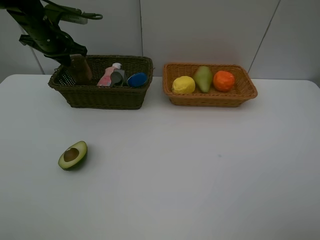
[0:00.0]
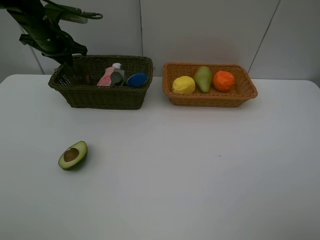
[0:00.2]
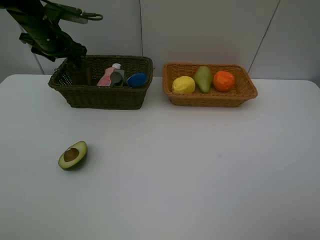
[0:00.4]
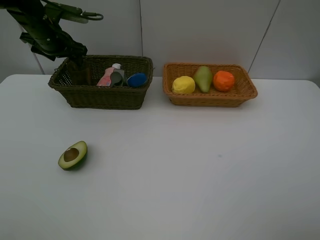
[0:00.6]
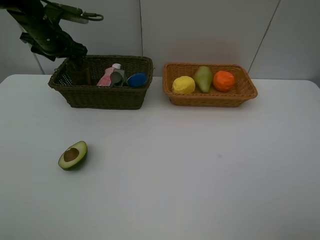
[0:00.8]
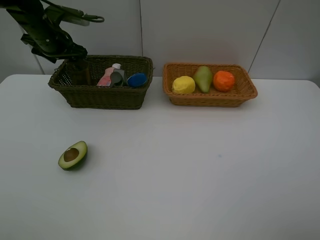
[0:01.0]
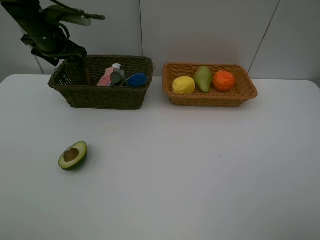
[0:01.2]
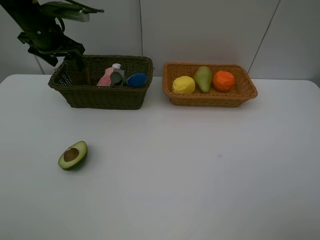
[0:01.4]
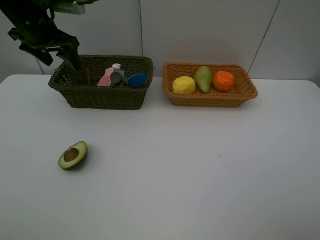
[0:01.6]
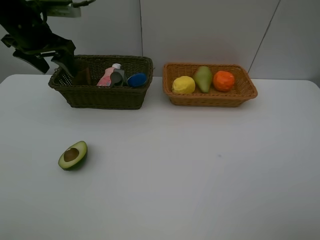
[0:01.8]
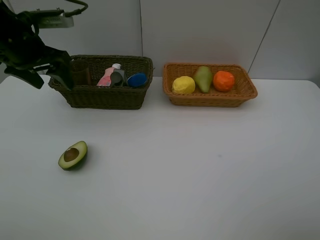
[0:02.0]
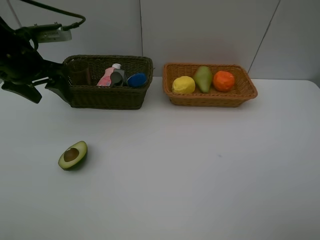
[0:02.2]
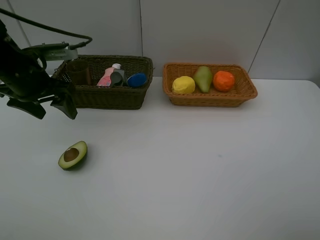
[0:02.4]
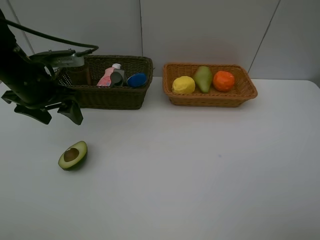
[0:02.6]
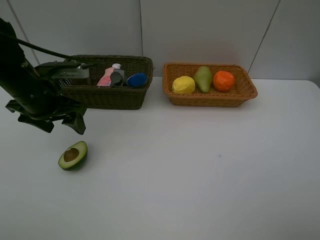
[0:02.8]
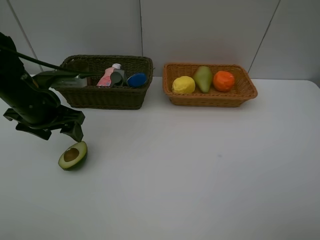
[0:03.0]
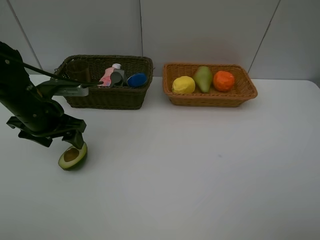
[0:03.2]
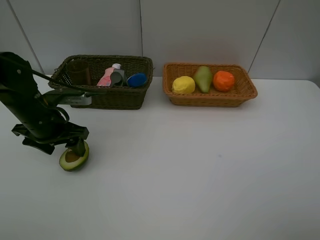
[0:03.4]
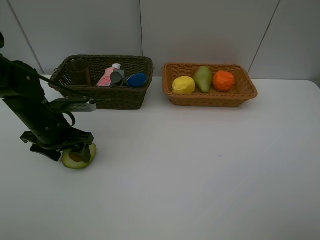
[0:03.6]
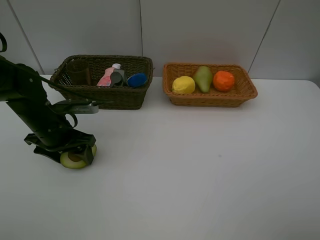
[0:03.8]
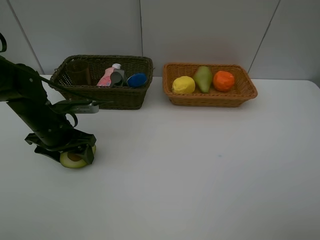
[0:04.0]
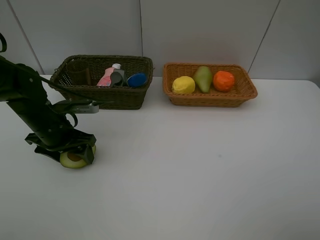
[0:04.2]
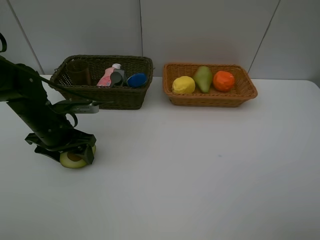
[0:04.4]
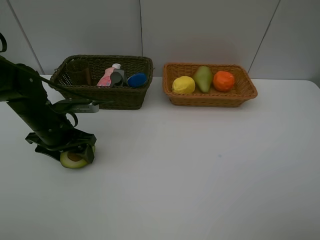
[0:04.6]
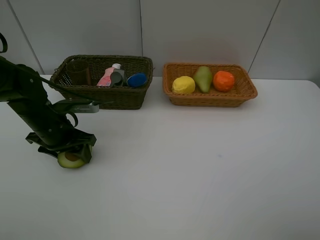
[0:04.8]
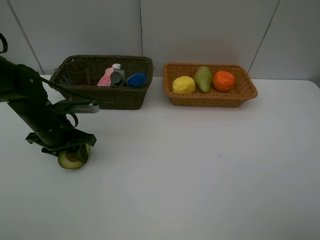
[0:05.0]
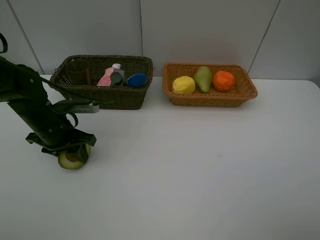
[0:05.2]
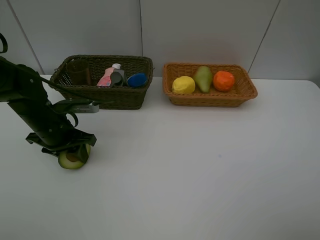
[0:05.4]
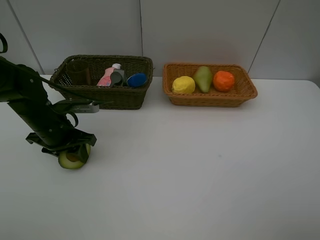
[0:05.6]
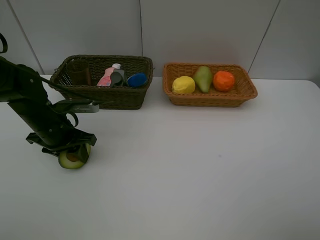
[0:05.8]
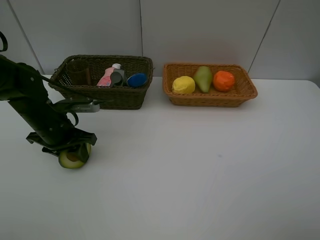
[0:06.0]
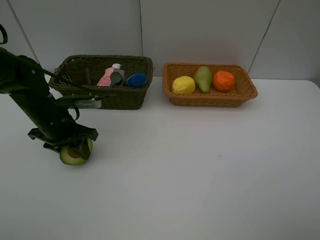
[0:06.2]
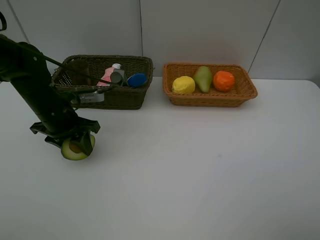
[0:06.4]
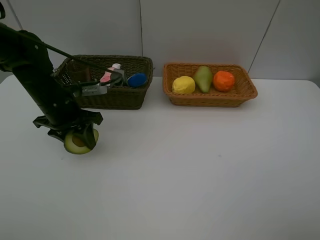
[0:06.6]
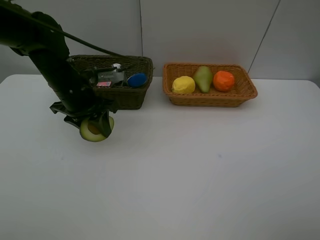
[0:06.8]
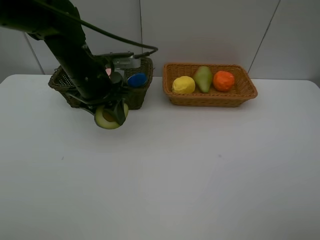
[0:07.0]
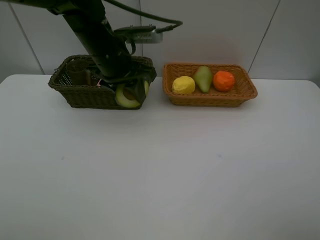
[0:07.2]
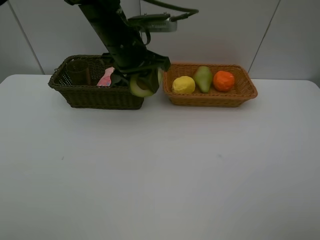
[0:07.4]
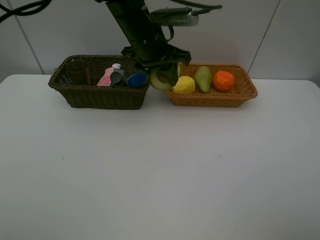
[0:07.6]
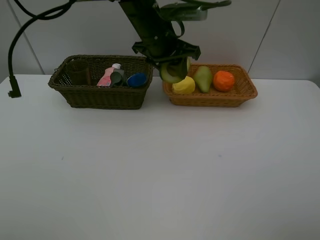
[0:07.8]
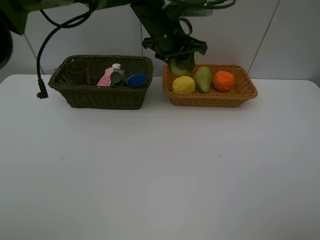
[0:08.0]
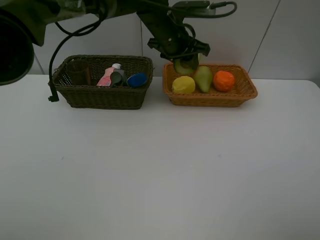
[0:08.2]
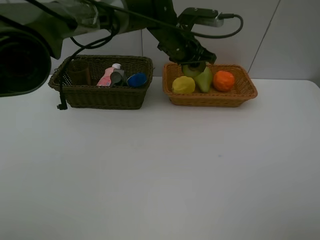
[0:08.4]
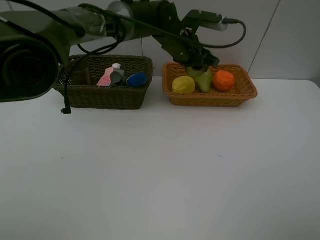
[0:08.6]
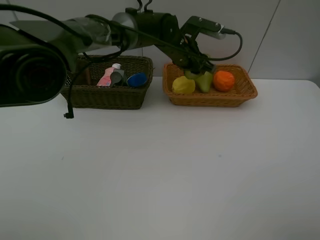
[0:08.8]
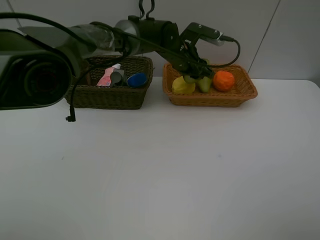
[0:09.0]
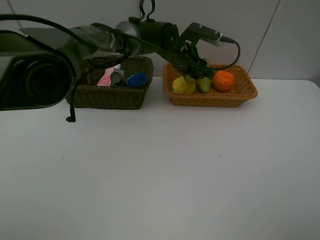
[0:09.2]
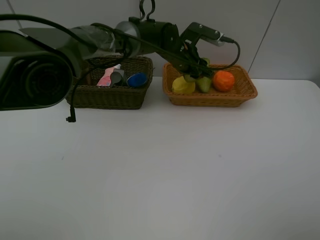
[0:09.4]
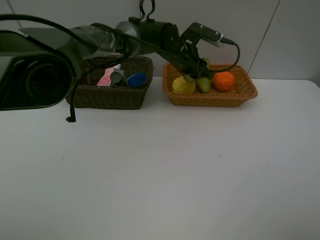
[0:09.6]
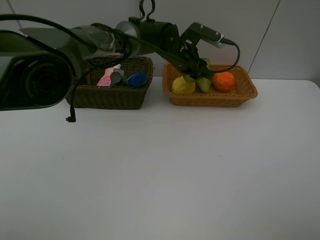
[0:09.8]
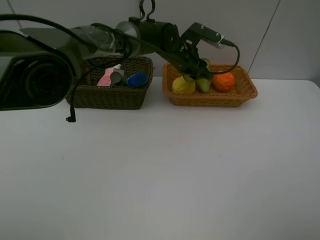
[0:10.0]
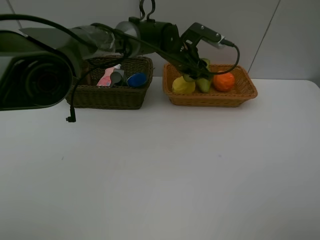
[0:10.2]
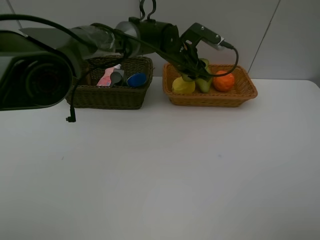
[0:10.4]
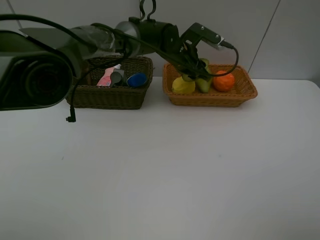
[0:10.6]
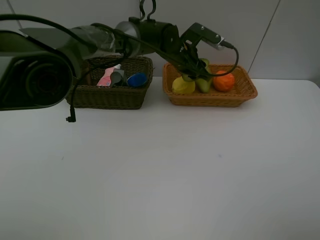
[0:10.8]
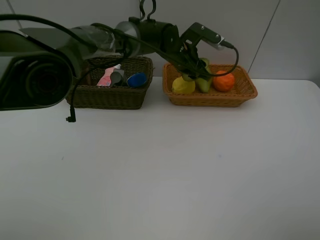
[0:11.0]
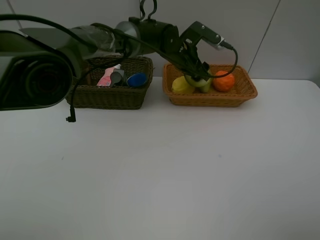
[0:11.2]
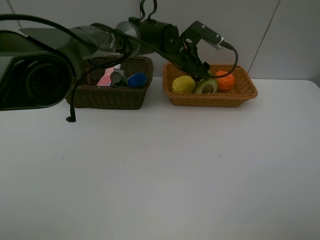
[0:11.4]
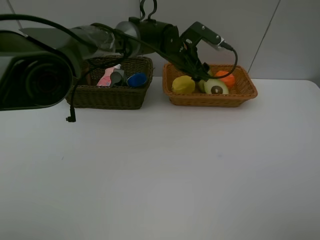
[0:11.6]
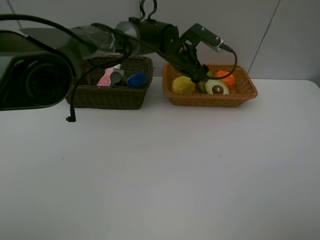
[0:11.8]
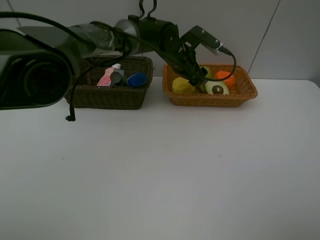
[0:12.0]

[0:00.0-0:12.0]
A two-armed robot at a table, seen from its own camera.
Task of the whole recording: Place multiple objects separately in different baskets.
Step, 1.8 to 6.2 s: Pick up the avocado with left gripper.
Step, 6.4 to 11.6 s: Place the avocado in the light basket with left gripper.
0.0 to 1.6 s: The left gripper shifts approximately 10 cm backward and upward, and opens its fingers.
1.6 to 3.0 s: The left gripper shifts roughly 15 cm backward and downward.
3.0 to 4.4 s: The left gripper heads downward, covering roughly 5 cm.
4.4 to 6.0 s: The left gripper closes its fingers.
6.0 to 7.6 s: The left gripper heads to the right, upward and forward, covering approximately 25 cm.
7.6 to 9.0 s: The left gripper moves downward, forward and to the right, some 15 cm.
9.0 to 10.4 s: The grippers make only small movements.
10.4 to 12.0 s: The left gripper opens its fingers.

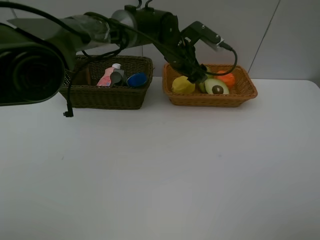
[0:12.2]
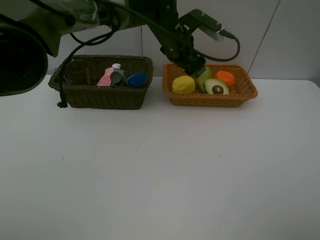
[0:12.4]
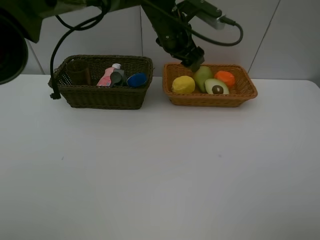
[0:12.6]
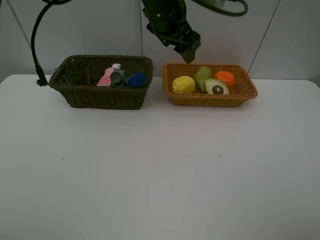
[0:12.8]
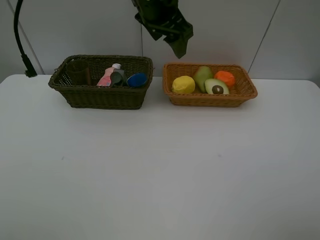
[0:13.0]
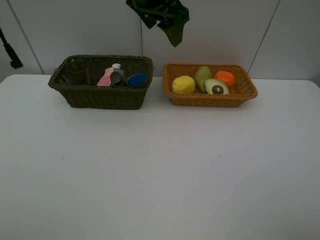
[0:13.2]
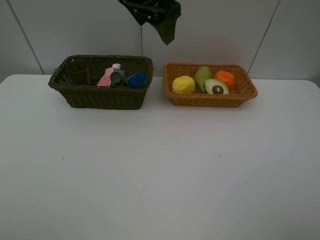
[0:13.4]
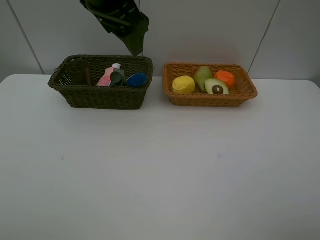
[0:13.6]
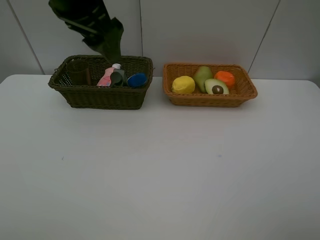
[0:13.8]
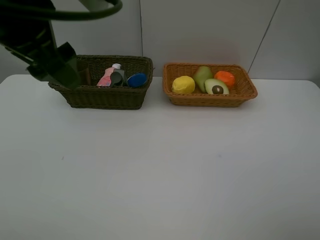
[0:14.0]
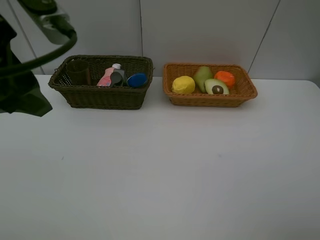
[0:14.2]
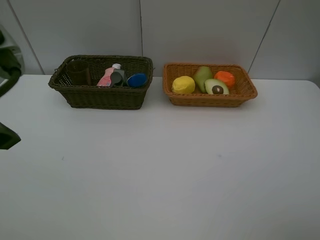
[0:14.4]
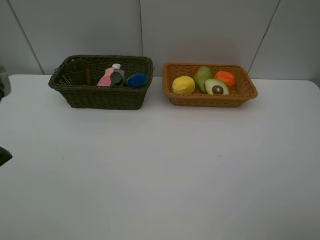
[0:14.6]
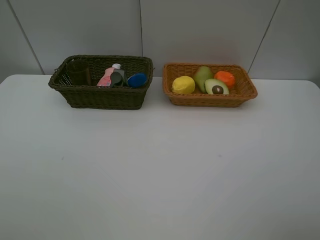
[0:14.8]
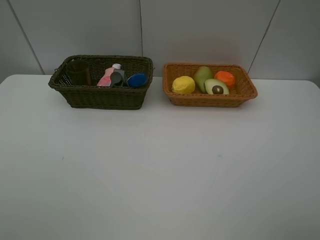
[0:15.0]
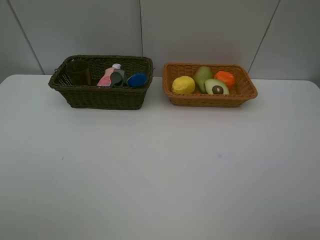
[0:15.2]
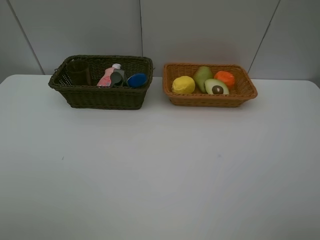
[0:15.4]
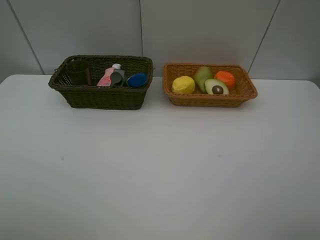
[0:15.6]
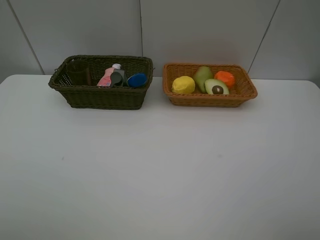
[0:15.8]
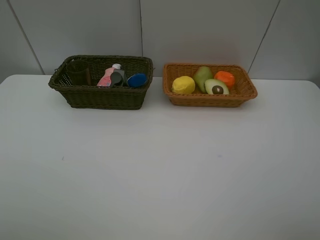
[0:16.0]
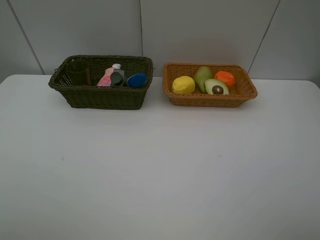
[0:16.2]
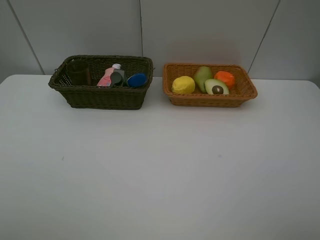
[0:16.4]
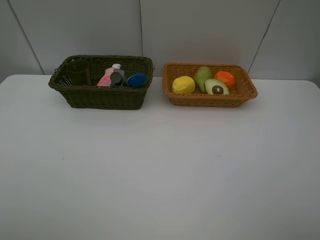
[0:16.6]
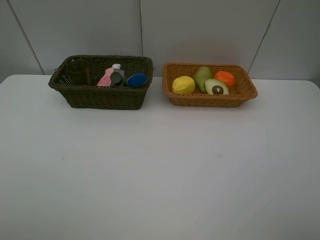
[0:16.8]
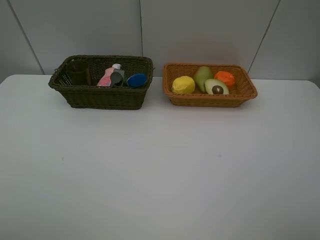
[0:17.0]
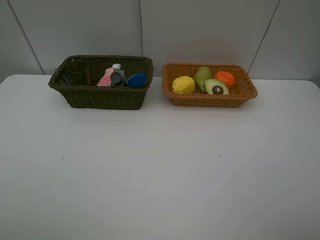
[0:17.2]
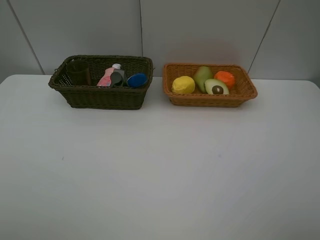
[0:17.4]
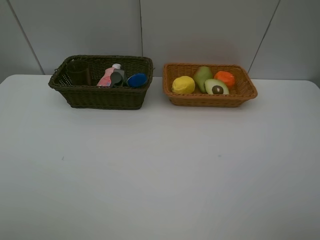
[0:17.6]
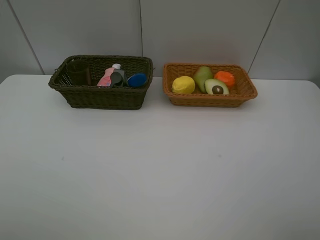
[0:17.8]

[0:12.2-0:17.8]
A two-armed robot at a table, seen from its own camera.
Task of the whole recording: Place multiple objects separately in different baskets.
12.2 to 13.6 s: The left gripper shifts approximately 25 cm upward, backward and to the left.
13.6 to 15.0 s: The left gripper goes some 30 cm backward and to the left.
16.4 to 17.8 s: Neither gripper changes place.

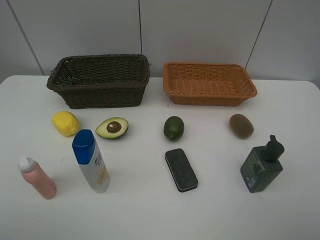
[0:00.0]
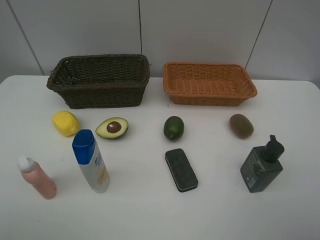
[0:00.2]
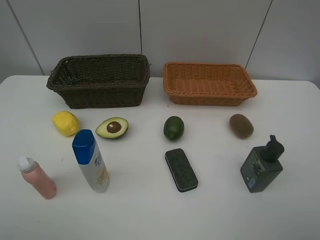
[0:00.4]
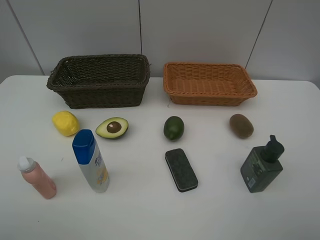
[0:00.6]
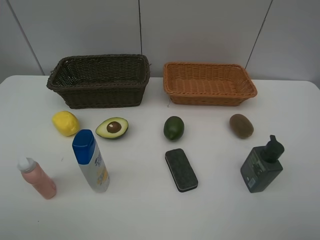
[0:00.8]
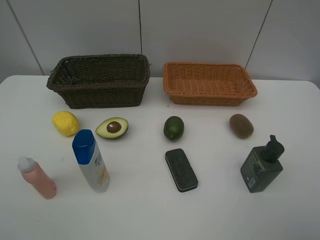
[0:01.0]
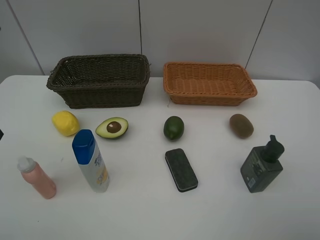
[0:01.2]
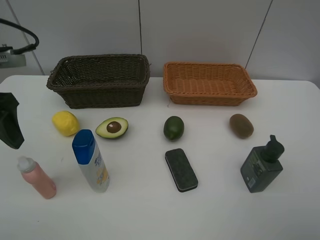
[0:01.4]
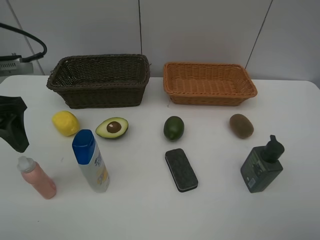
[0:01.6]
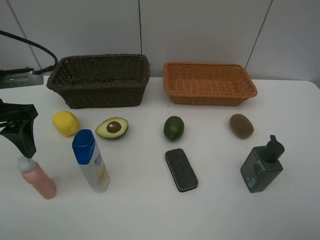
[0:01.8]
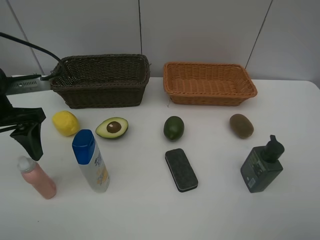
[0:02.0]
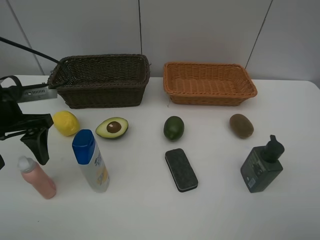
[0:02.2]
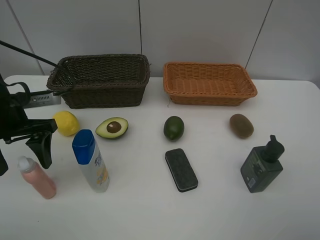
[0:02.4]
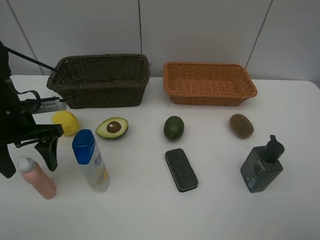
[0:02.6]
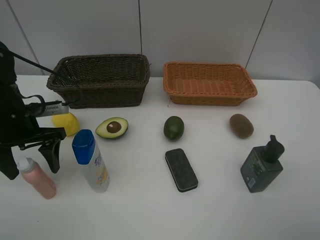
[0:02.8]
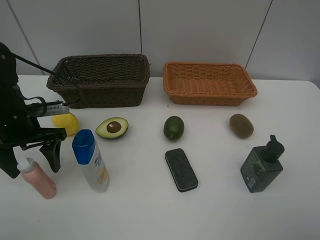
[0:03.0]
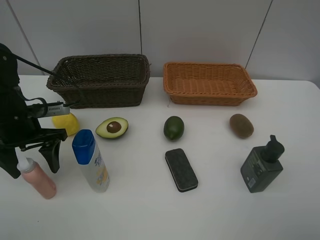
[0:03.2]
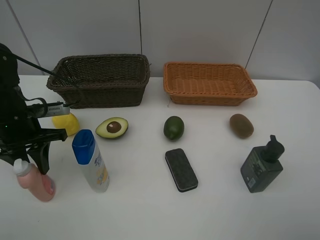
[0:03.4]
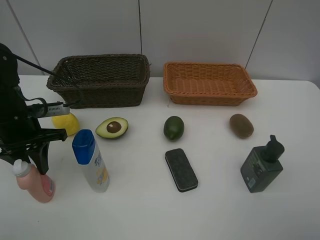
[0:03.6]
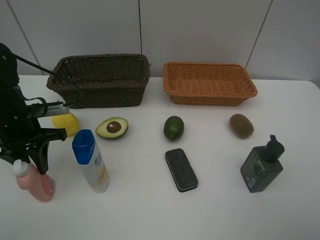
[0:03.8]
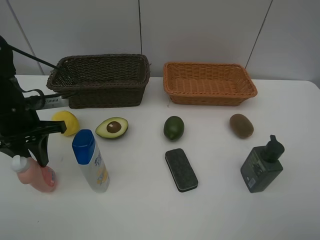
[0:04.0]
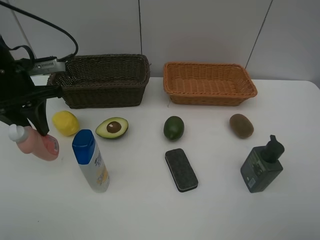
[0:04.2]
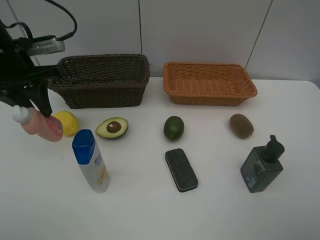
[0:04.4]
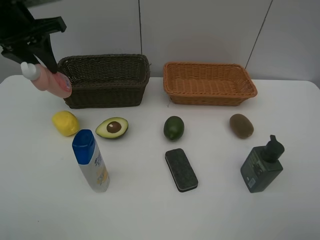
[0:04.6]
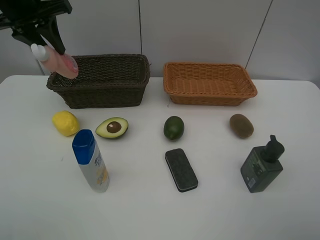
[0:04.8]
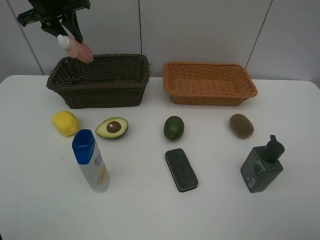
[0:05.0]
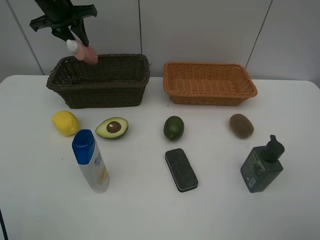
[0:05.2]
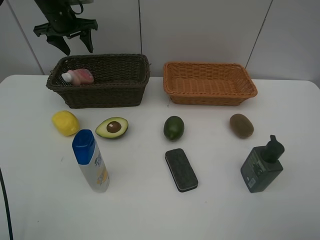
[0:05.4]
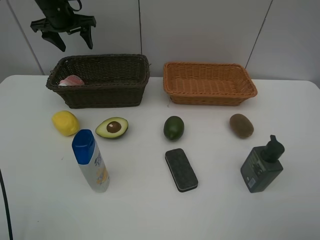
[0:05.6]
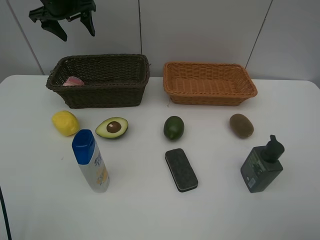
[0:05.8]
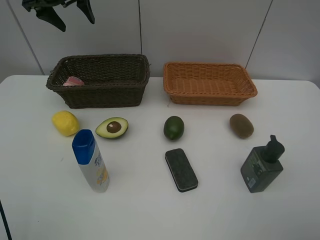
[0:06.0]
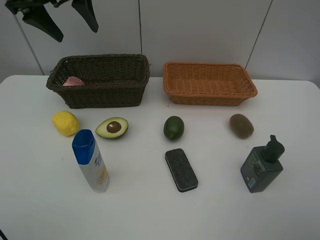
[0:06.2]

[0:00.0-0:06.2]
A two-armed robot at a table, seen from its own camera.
Task of the whole recording: Place multiple objects separately in different baskets.
Step, 0.0 to 4.0 s: Pick up the laundry detergent with left gripper.
Step, 4.2 to 5.4 s: Place the laundry detergent in the dark basket with left gripper.
0.0 to 1.6 s: The left gripper travels forward by some 25 cm.
1.6 to 3.2 s: The left gripper heads downward, covering some 10 cm.
3.2 to 4.6 s: The left gripper shifts some 20 cm upward and forward, and closes.
4.6 to 6.2 s: The left gripper travels to the right by roughly 5 cm, goes forward and returns, approximately 15 cm each way, and opens up.
